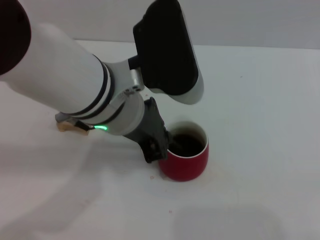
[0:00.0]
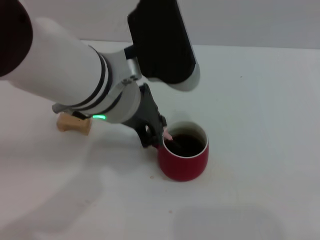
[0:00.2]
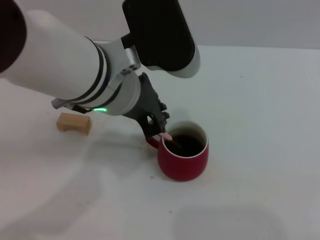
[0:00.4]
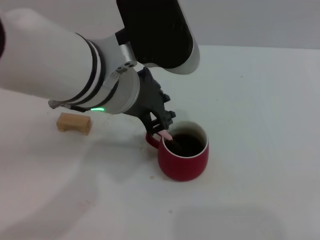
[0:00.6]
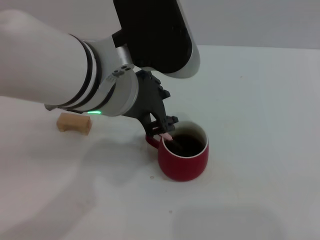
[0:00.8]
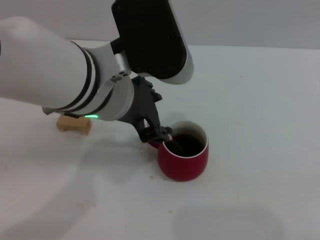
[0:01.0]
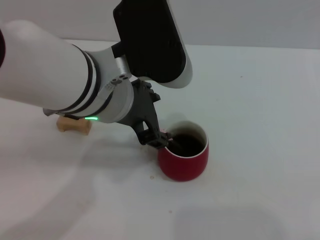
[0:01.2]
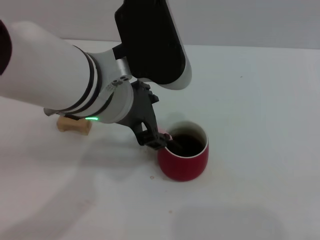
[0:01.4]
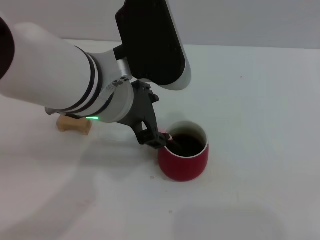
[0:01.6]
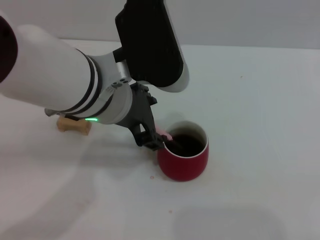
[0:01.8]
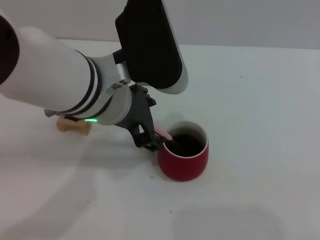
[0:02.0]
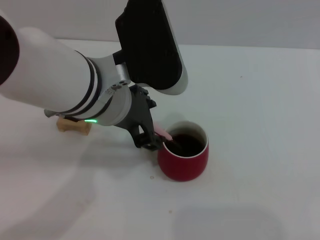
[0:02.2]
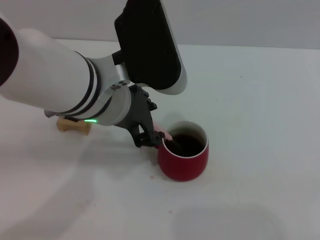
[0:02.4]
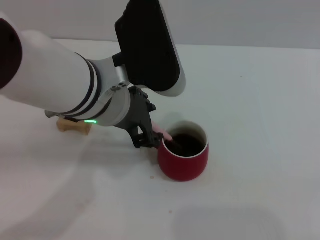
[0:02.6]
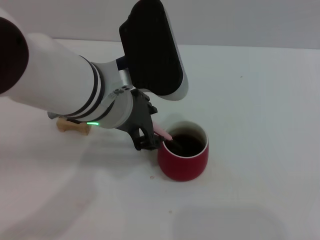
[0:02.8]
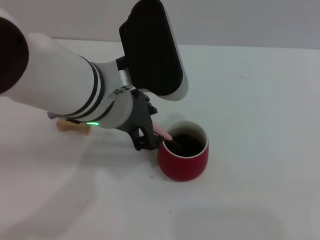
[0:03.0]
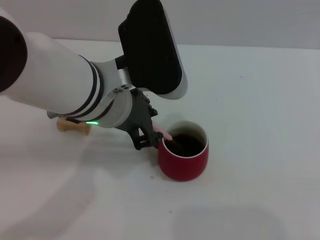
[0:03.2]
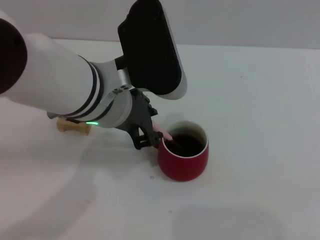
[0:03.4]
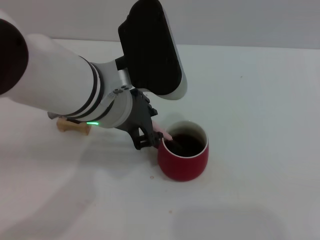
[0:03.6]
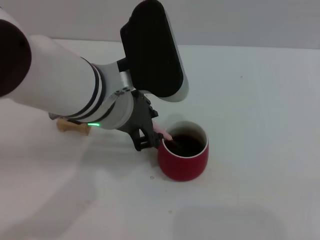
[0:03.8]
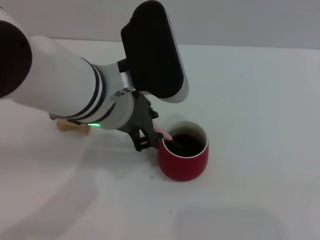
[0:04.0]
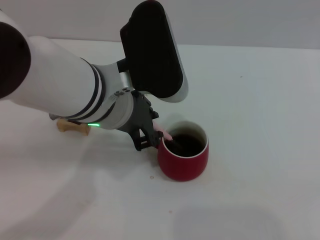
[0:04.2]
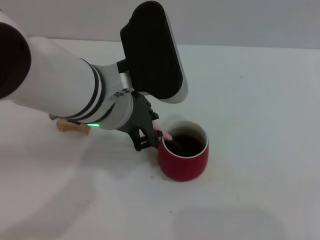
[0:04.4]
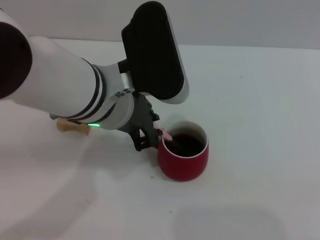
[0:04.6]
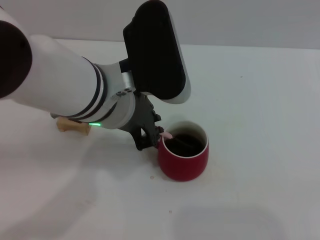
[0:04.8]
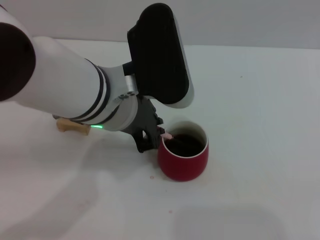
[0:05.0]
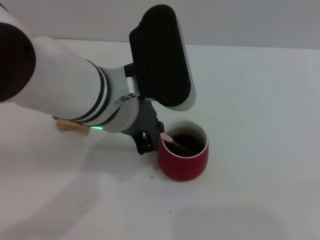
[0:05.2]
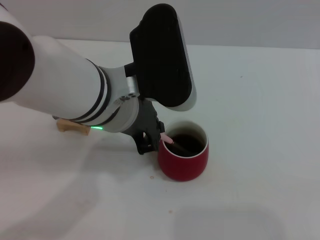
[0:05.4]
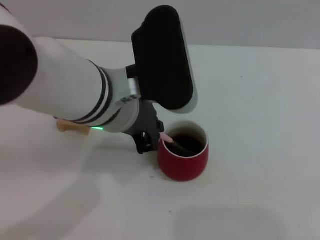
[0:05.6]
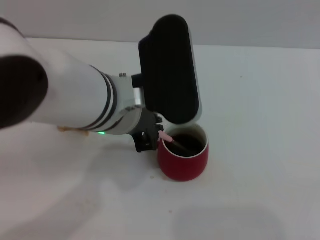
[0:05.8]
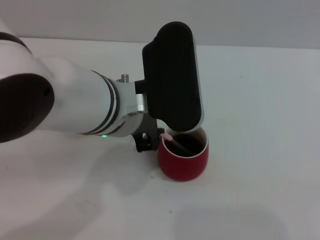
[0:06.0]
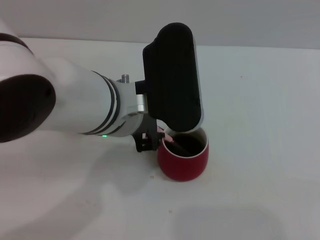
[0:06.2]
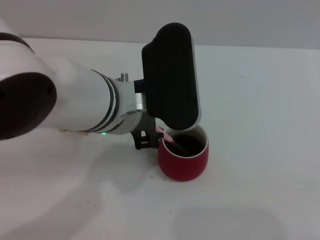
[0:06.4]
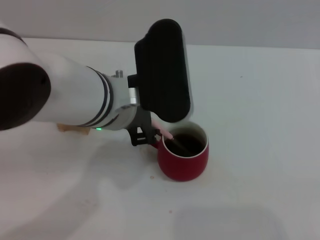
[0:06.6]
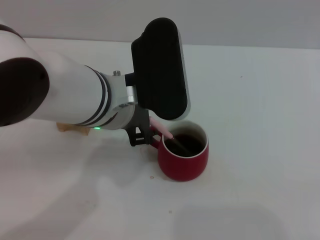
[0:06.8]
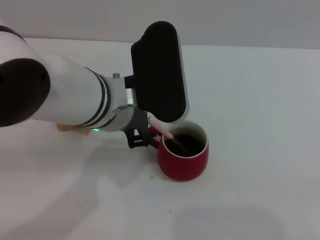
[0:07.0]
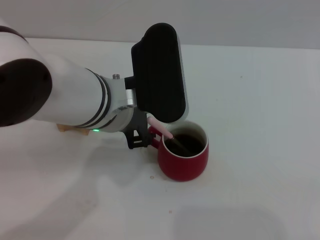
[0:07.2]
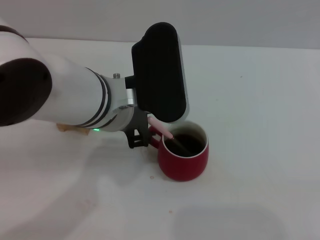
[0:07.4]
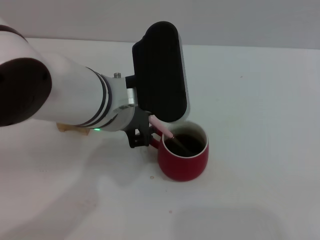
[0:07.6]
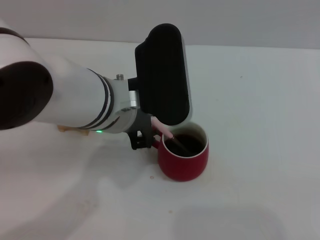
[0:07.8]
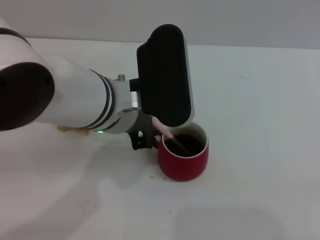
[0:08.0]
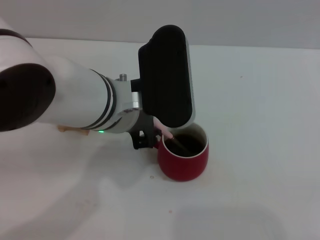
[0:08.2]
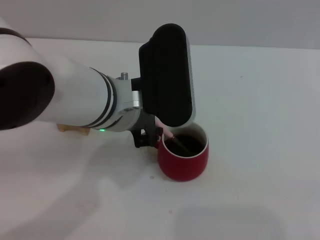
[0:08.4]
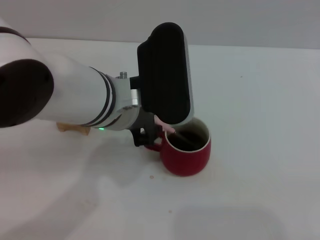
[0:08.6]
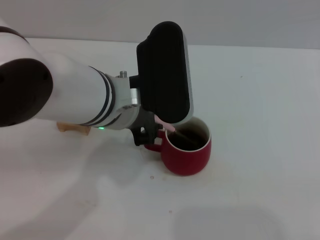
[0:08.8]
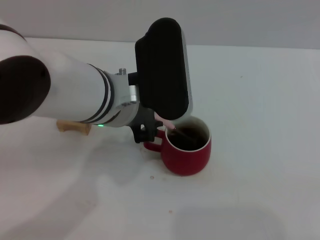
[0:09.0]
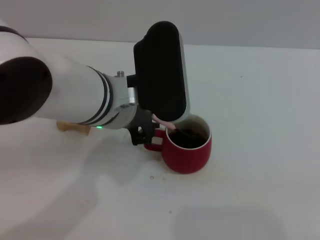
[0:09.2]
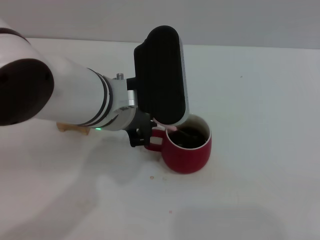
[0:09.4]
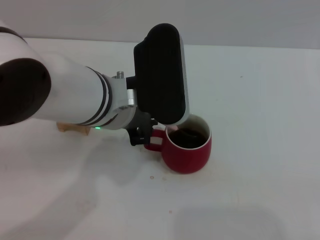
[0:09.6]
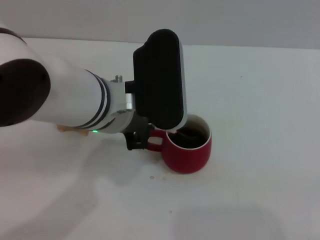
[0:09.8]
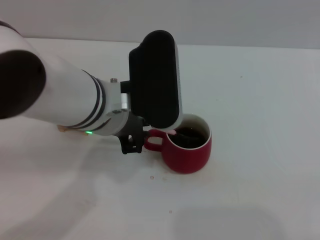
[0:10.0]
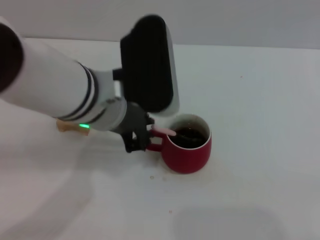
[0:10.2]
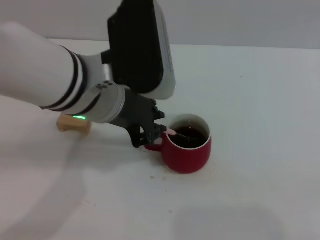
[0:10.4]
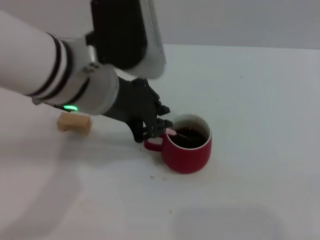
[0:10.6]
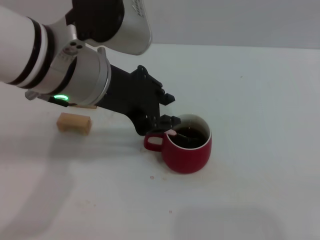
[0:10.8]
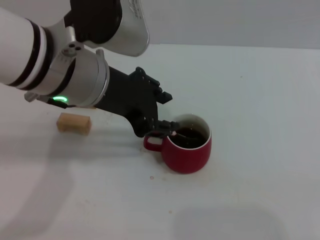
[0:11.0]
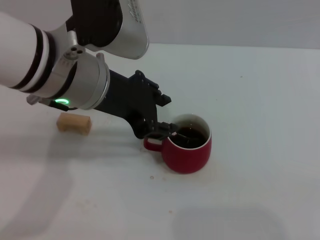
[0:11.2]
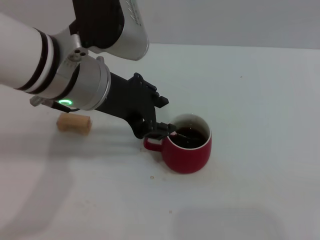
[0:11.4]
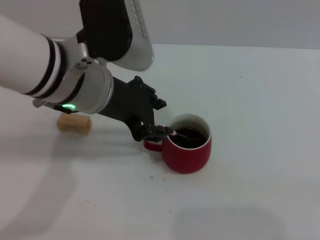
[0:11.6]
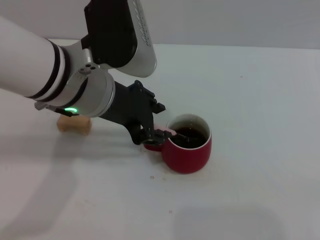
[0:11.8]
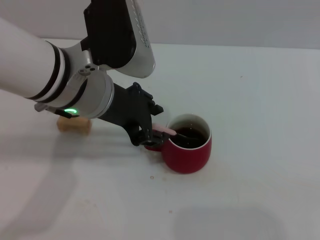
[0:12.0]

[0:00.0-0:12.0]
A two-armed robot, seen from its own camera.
Task of the whole recording: Move the red cup to the center, lift the pink spoon, stir it three times in the cup, and put the spoon into the cup.
0:00.0 to 0:01.6: The left gripper opens up.
0:01.6 to 0:03.0: The grippers move only a little.
0:03.0 to 0:04.4: The two grippers keep their place.
0:04.4 to 0:06.0: The grippers stay close to where they were, moving slightly.
0:06.0 to 0:07.6: The left gripper opens.
0:07.6 to 0:09.0: Neither gripper changes place.
0:09.0 to 0:10.4: The grippers make only small movements.
0:10.4 to 0:12.0: The left gripper opens up.

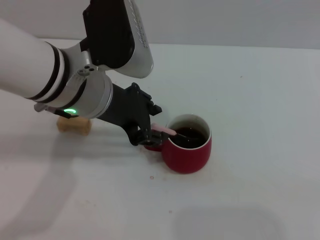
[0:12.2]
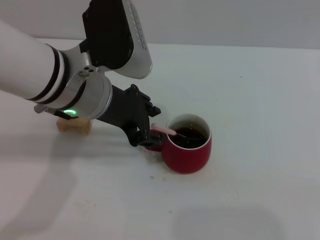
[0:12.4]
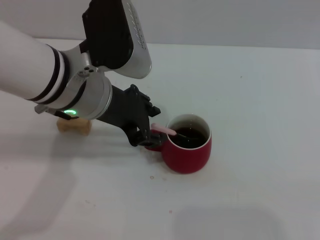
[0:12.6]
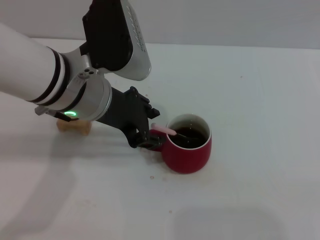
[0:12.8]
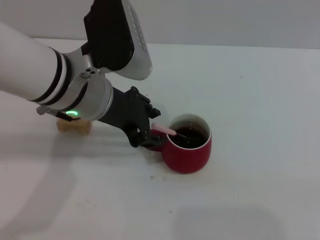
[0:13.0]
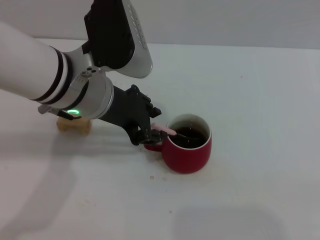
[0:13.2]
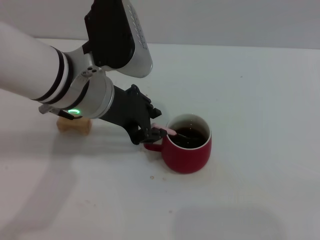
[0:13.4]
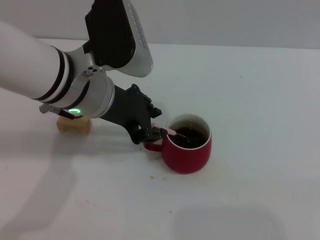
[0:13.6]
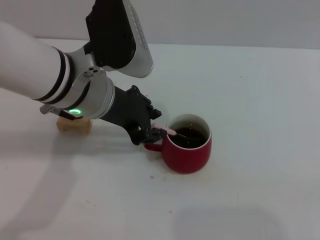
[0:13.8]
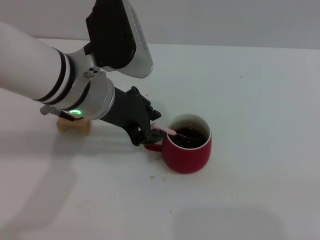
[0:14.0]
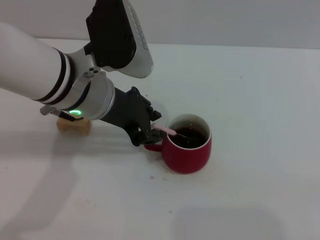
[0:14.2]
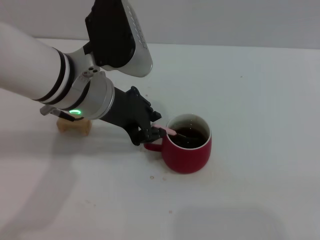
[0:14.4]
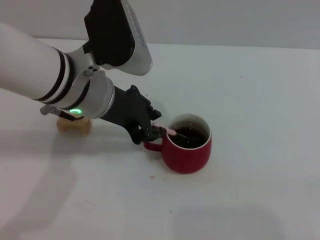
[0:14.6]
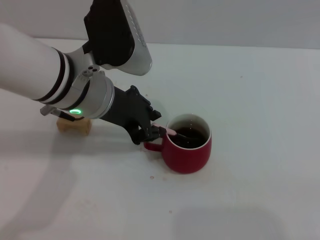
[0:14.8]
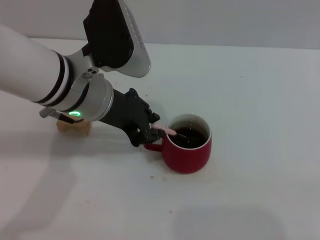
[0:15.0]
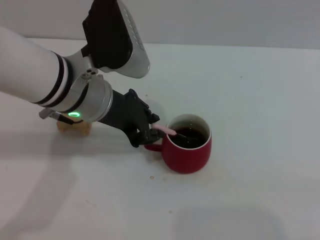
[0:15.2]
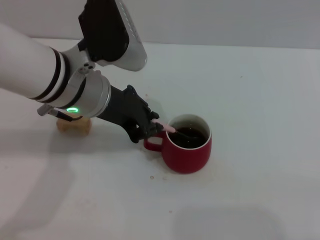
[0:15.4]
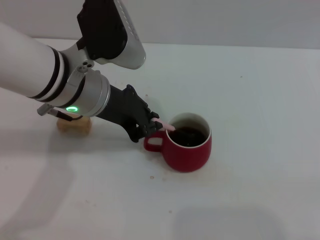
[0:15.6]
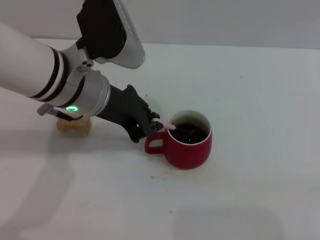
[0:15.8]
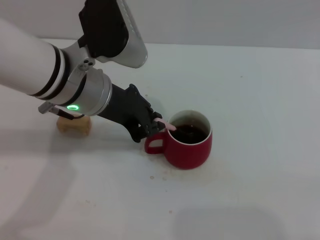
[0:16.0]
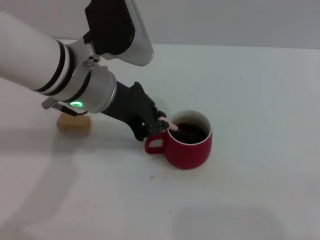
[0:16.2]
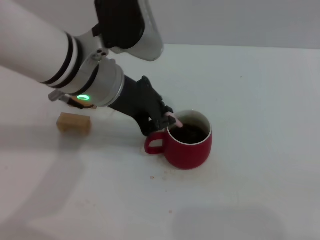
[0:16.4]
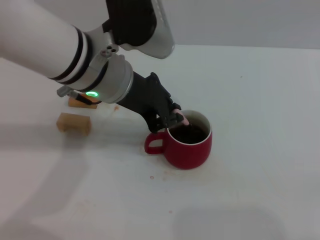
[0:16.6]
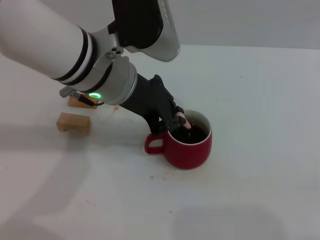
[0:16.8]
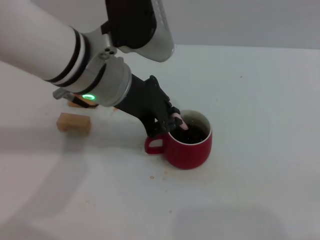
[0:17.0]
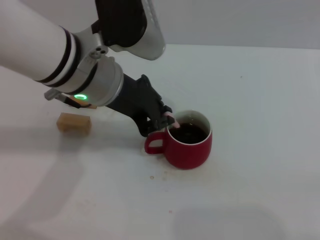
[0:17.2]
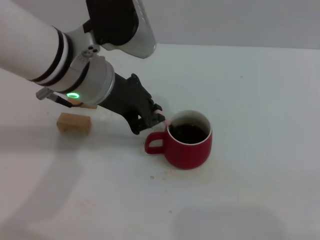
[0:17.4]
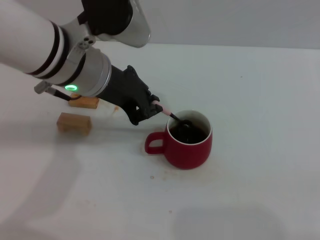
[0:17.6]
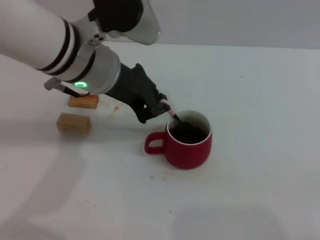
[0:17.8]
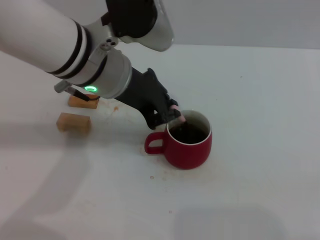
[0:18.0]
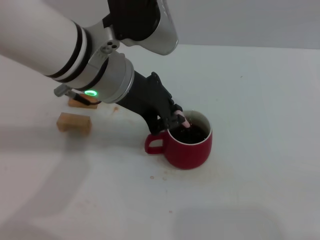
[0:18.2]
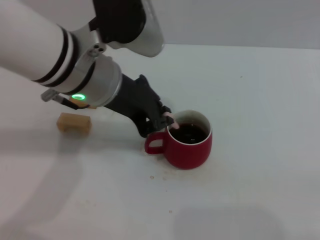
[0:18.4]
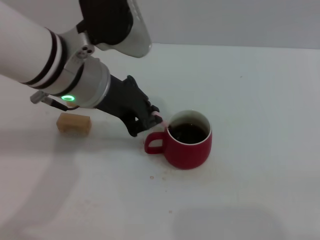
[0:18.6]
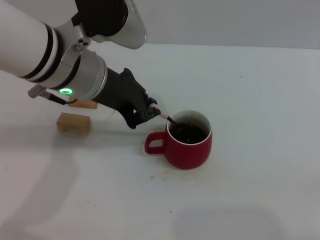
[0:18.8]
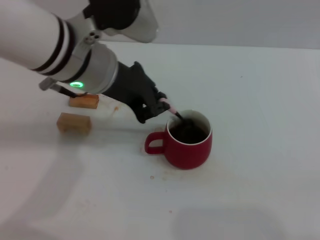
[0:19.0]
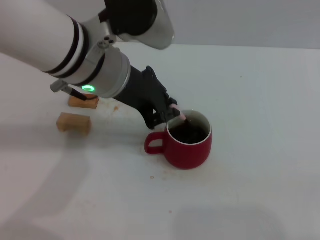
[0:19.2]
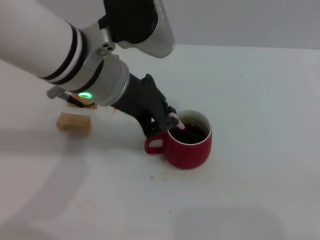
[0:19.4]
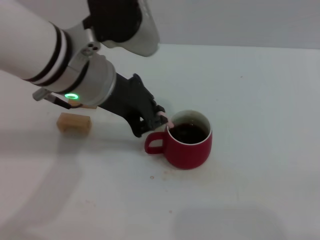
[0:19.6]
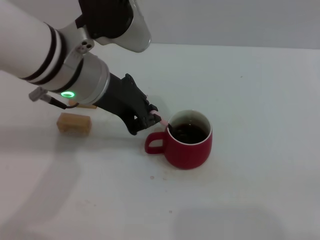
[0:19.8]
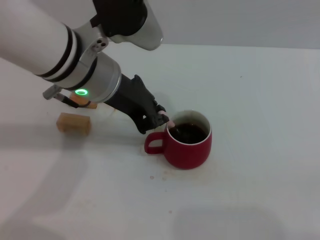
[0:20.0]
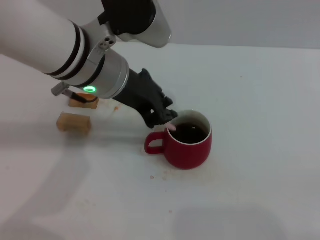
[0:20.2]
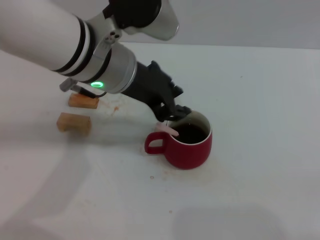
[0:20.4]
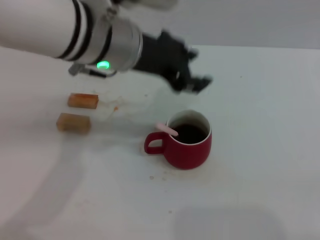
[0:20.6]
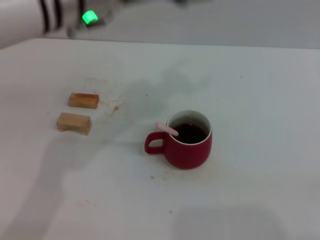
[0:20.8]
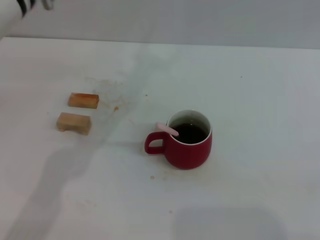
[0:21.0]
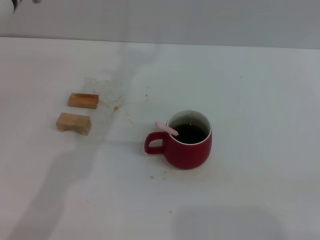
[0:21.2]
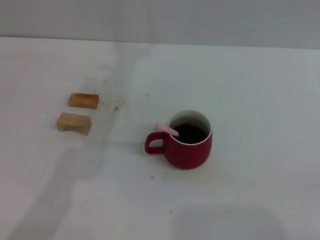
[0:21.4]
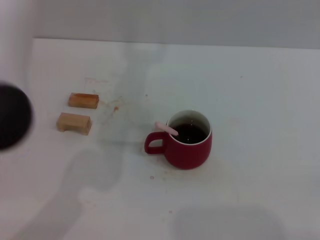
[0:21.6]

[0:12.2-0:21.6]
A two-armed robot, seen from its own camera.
Task of the whole recording: Move the red cup to the center, lift the pink spoon, stir it three times in the cup, and put the spoon into the cup.
Step, 0:12.2 to 0:20.2: Stir the coffee with left gripper.
0:12.2 to 0:13.8: The grippers stay close to where they were, moving slightly.
0:13.8 to 0:15.4: Both grippers stay put.
0:15.4 to 0:20.0: The grippers stay close to where they were, moving slightly.
0:20.0 to 0:21.6: The left gripper goes roughly 10 cm upward, and opens.

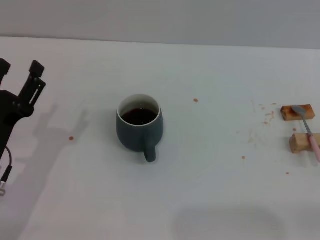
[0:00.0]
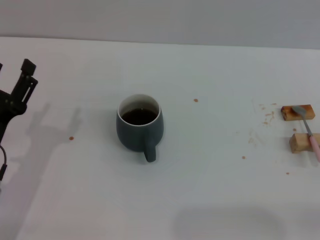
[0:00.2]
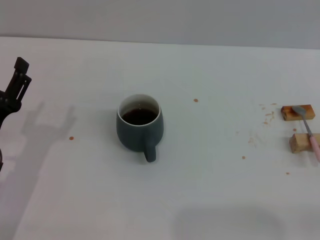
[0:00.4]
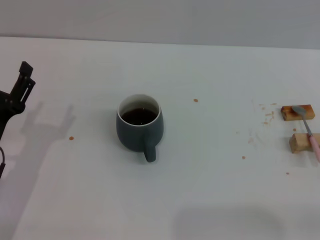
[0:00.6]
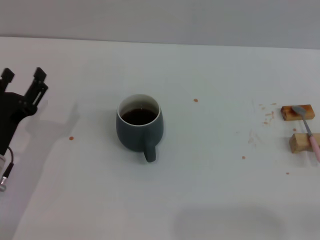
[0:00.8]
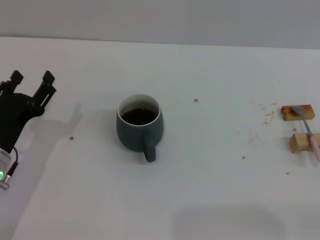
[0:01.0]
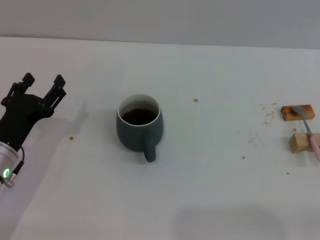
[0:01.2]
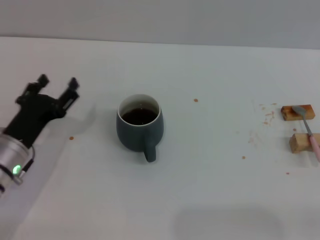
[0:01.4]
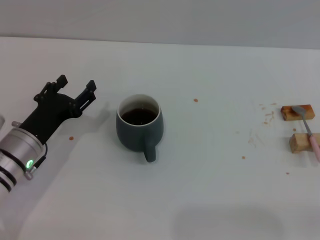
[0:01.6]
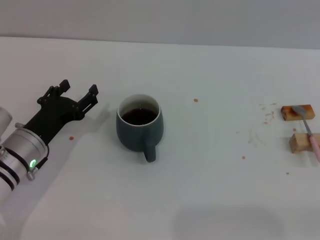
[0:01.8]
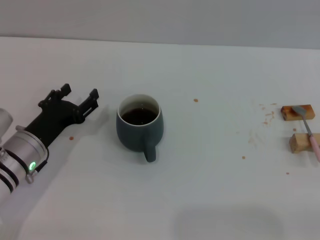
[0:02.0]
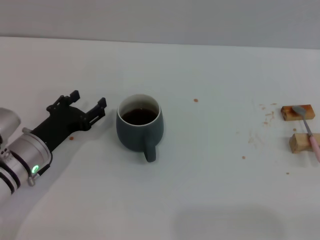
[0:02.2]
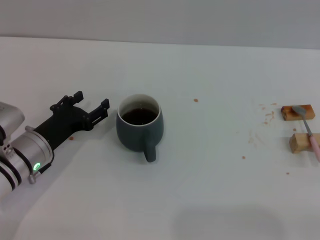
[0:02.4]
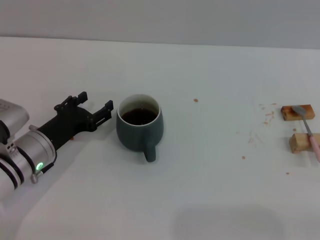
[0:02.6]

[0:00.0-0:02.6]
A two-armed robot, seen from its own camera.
Task of the whole recording: Move the grey cup to the center, lift the pink spoon, stir it three times in the cup, and put the spoon into the cup.
0:00.0 to 0:01.2: The grippers stay close to where they were, moving slightly.
